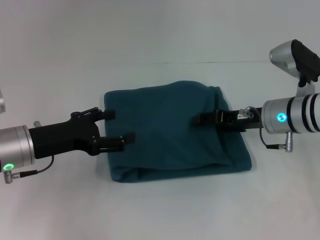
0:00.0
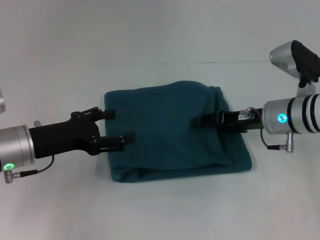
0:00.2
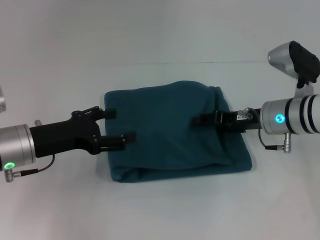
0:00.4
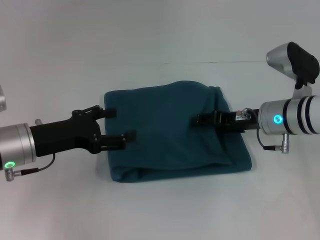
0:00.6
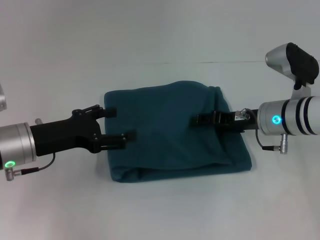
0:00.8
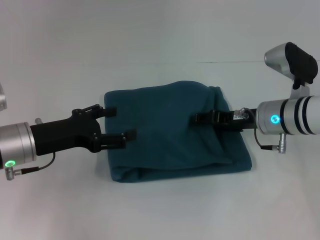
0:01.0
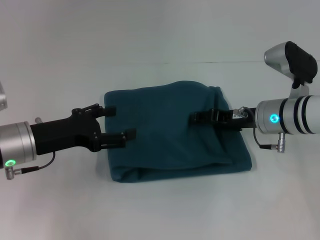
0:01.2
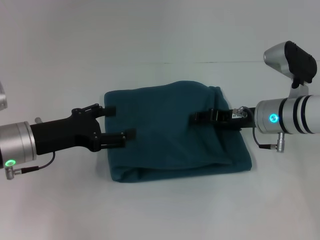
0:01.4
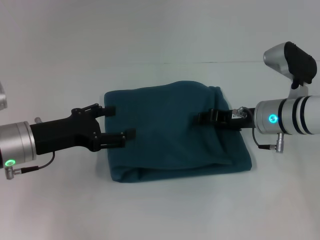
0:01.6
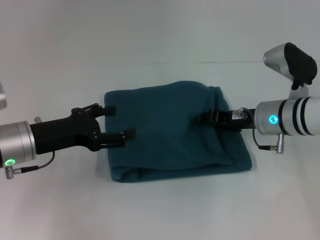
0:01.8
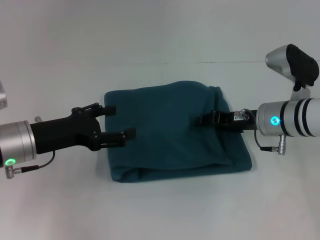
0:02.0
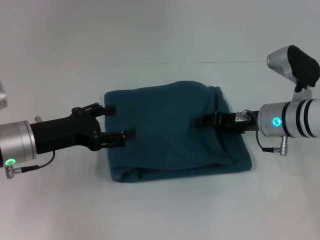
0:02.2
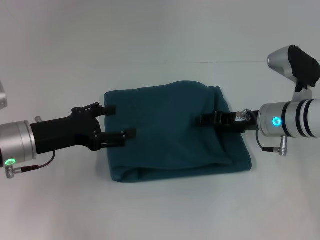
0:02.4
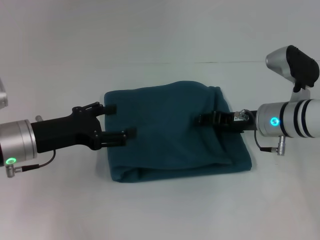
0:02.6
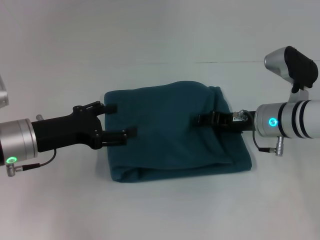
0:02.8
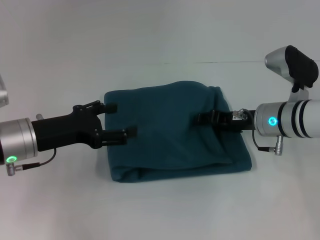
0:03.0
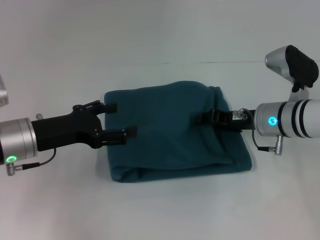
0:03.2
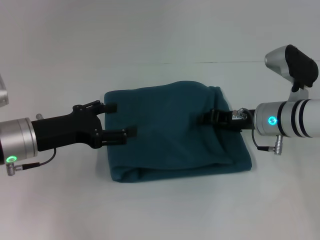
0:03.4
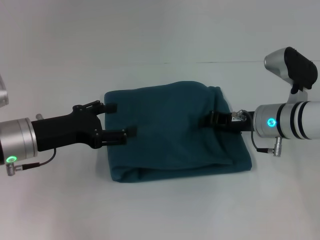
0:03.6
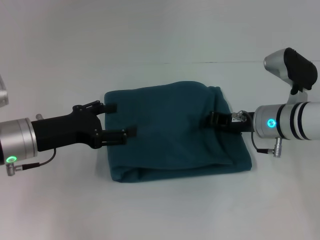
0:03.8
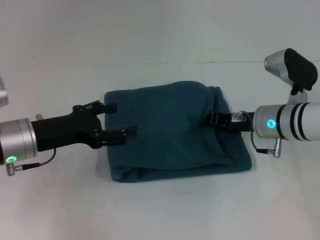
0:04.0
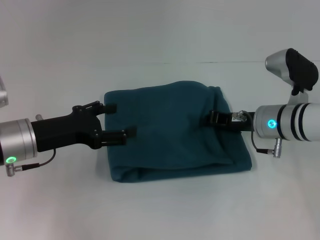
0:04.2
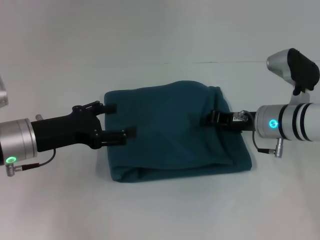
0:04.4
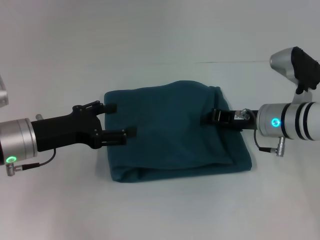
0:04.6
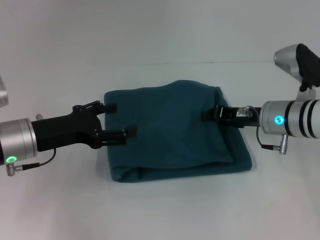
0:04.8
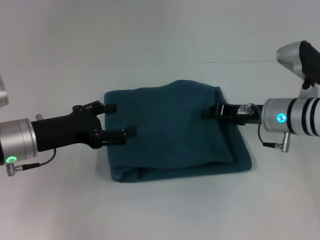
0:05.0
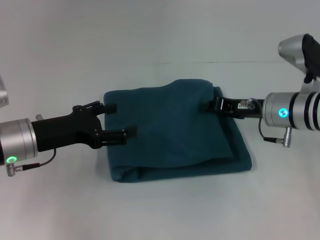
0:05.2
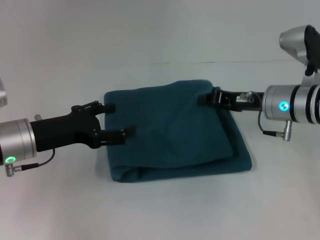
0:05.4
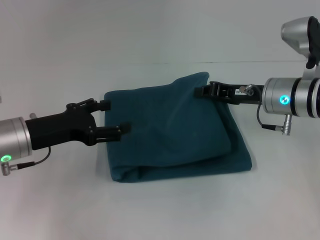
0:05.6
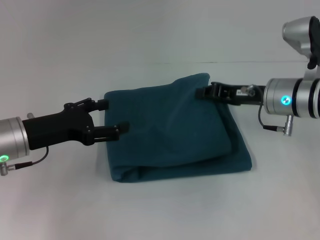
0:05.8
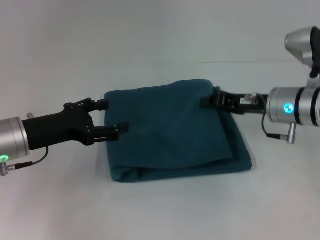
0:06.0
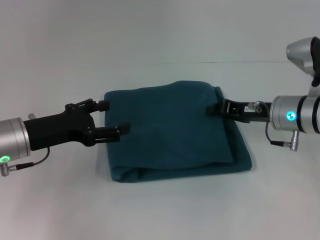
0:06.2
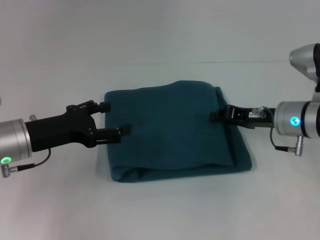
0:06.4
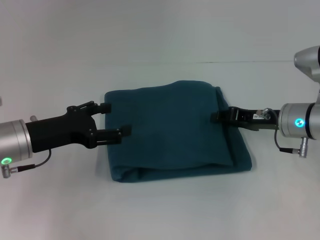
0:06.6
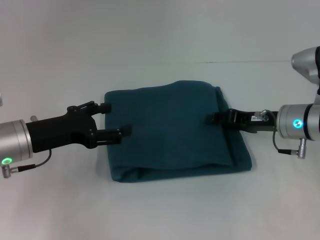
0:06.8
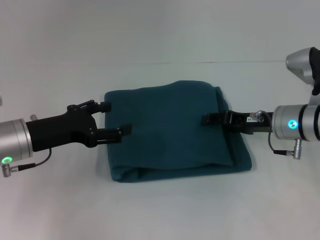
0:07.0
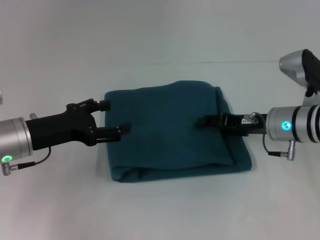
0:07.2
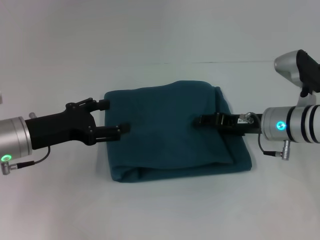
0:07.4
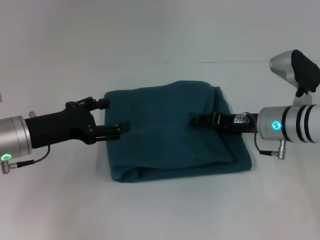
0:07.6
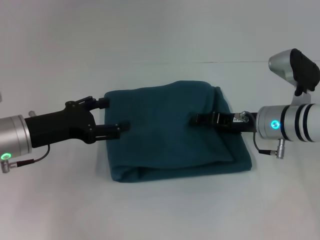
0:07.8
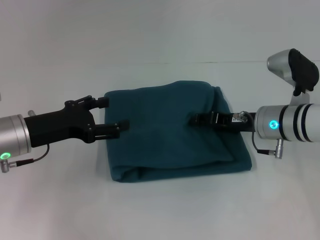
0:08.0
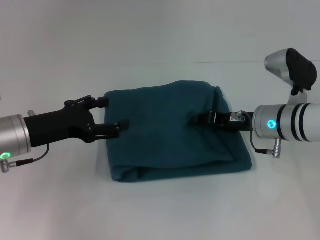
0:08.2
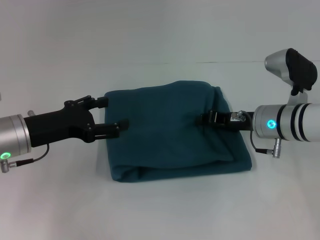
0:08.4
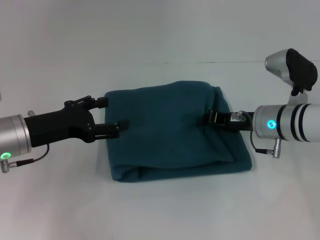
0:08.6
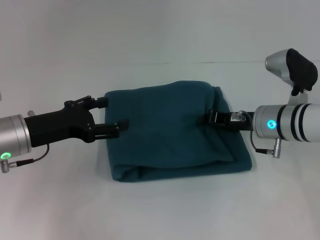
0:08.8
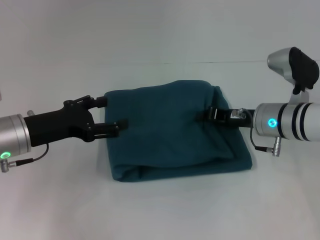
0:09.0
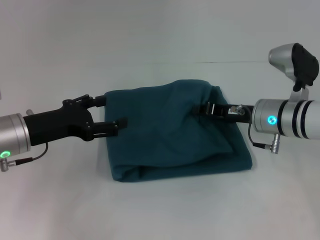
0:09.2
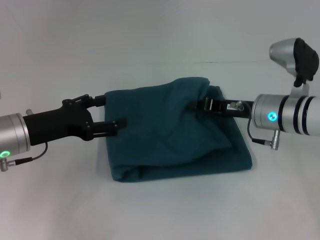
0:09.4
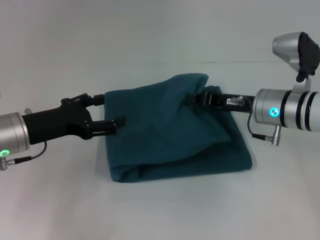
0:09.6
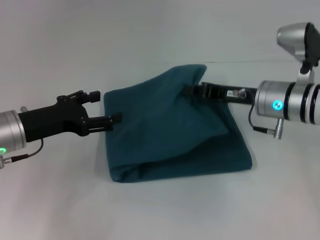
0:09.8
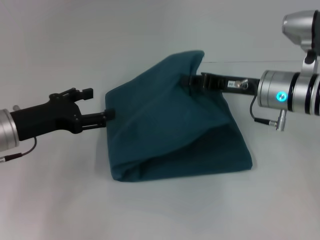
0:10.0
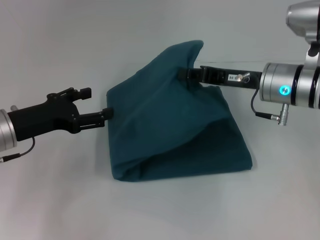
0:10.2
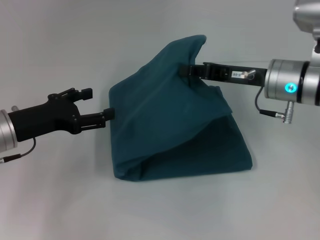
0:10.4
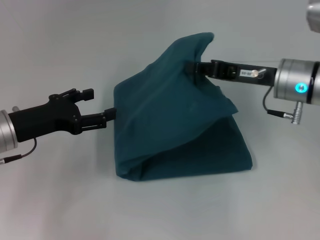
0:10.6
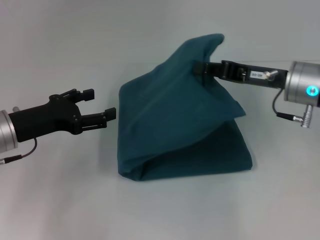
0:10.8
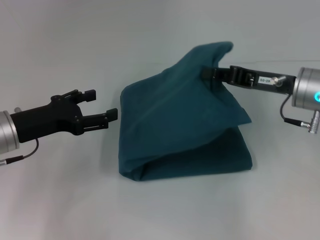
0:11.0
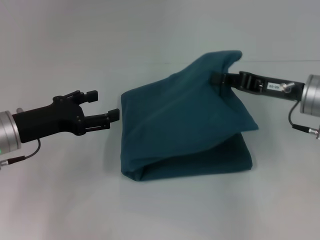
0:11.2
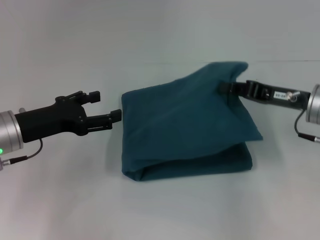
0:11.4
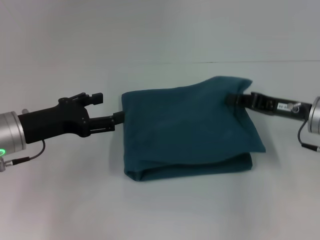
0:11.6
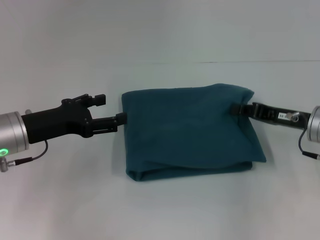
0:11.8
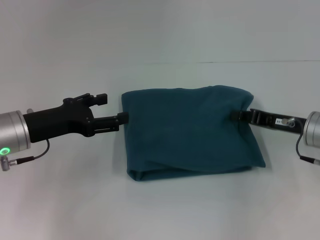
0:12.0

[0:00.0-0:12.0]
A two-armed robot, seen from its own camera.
0:00.0 to 0:01.6: Both grippers stay put.
0:01.6 to 0:03.0: Both grippers stay put.
0:03.0 to 0:04.4: The right gripper closes.
0:04.4 to 0:06.0: The grippers move only a little.
0:06.0 to 0:07.6: The right gripper opens.
0:07.6 to 0:09.0: The right gripper closes up.
0:09.0 to 0:10.4: The right gripper moves upward, about 5 cm.
0:10.4 to 0:12.0: The right gripper moves to the right and downward, approximately 10 cm.

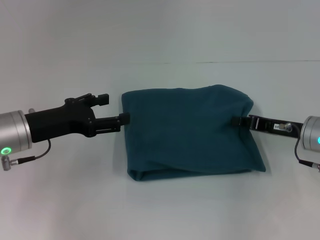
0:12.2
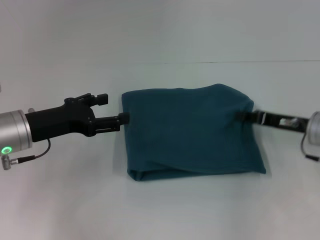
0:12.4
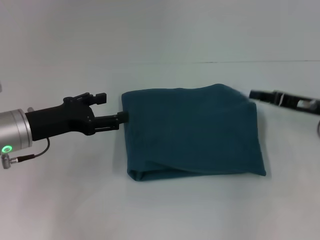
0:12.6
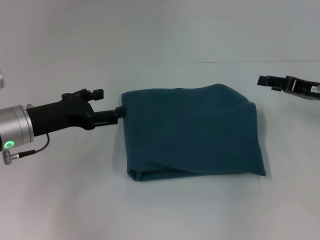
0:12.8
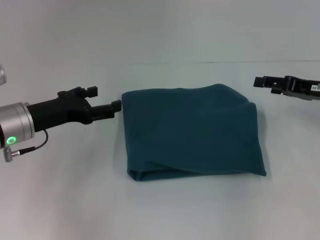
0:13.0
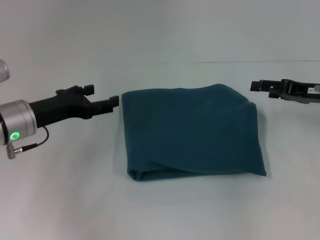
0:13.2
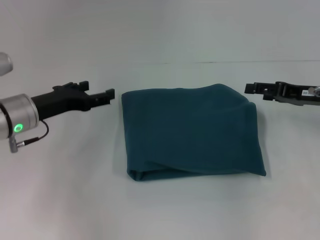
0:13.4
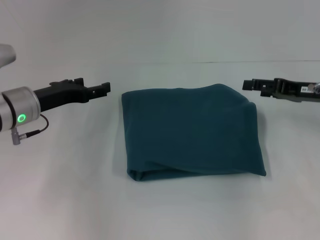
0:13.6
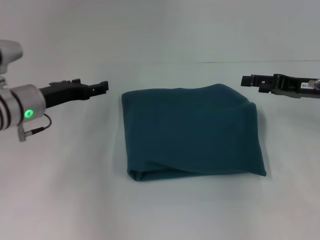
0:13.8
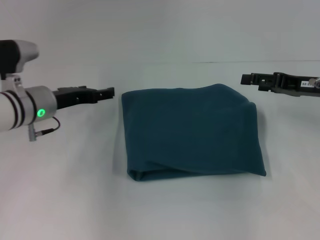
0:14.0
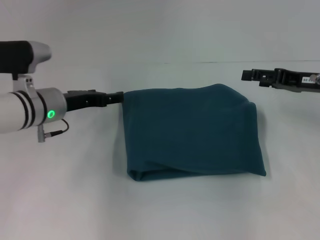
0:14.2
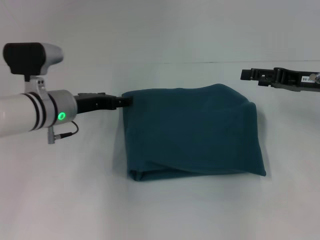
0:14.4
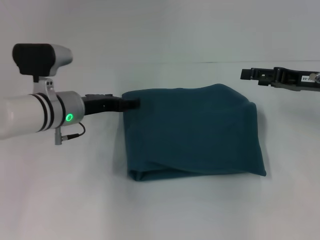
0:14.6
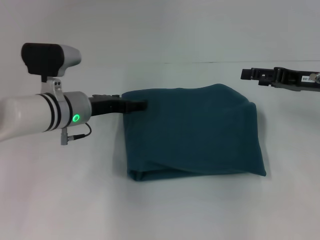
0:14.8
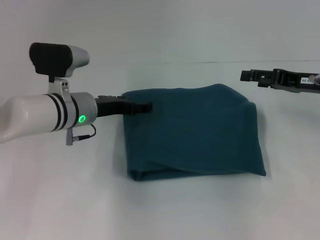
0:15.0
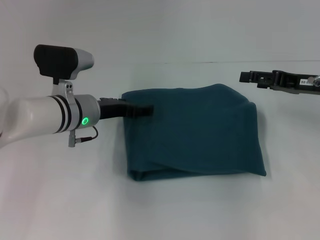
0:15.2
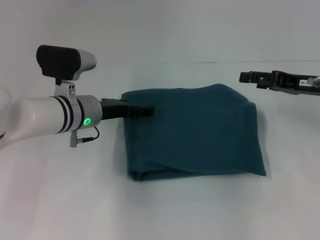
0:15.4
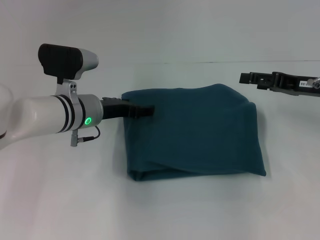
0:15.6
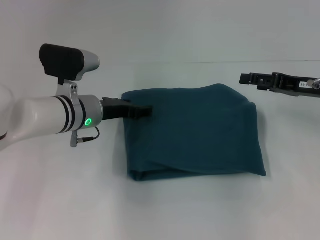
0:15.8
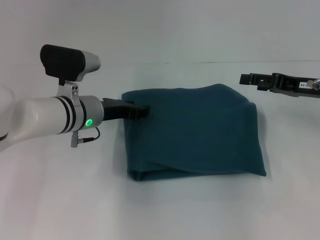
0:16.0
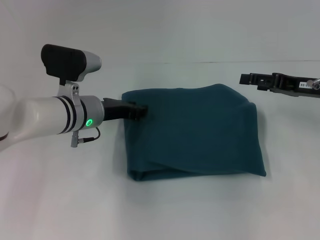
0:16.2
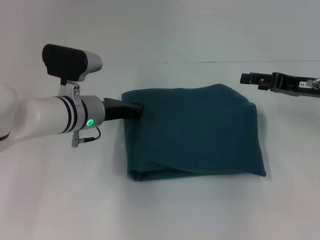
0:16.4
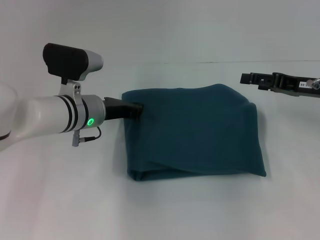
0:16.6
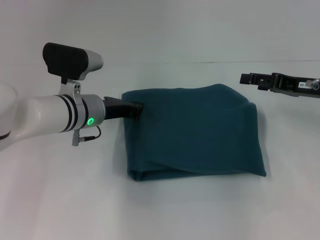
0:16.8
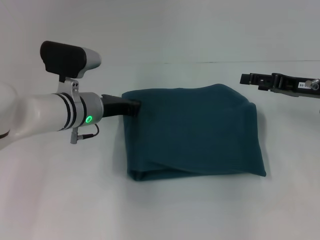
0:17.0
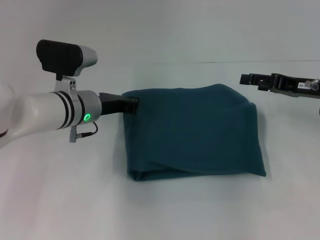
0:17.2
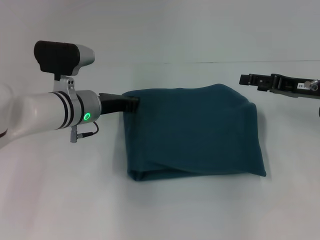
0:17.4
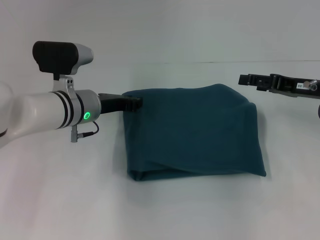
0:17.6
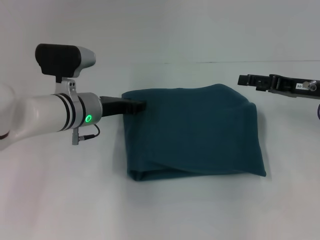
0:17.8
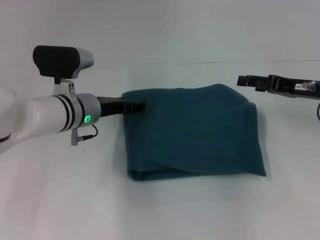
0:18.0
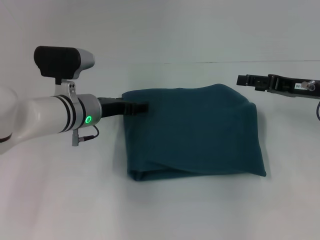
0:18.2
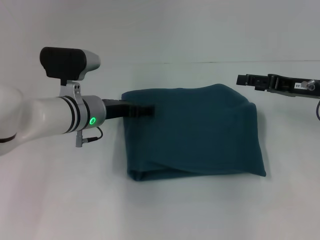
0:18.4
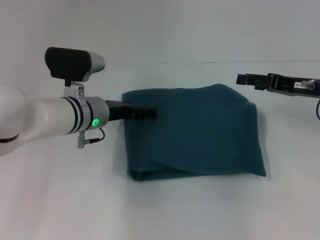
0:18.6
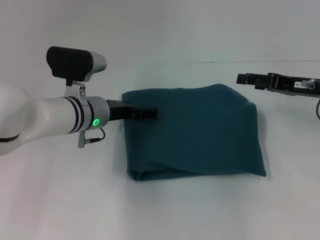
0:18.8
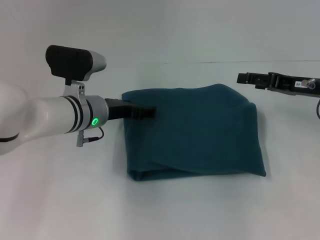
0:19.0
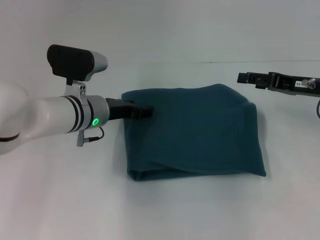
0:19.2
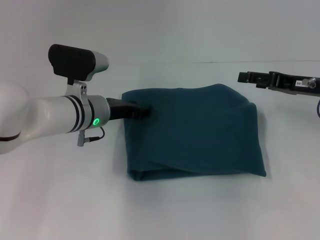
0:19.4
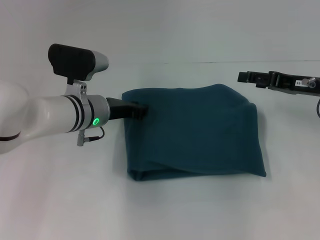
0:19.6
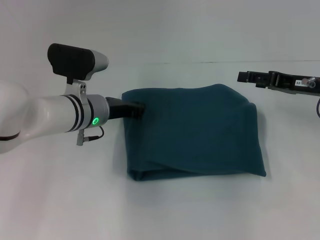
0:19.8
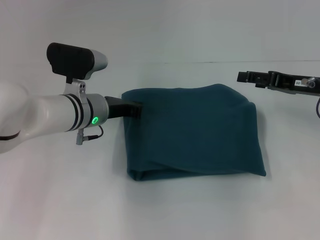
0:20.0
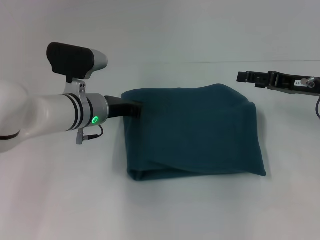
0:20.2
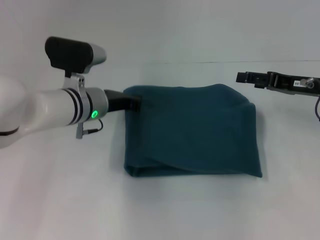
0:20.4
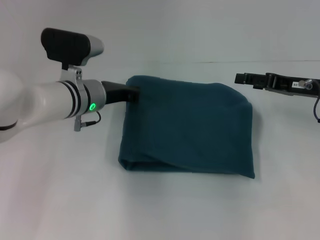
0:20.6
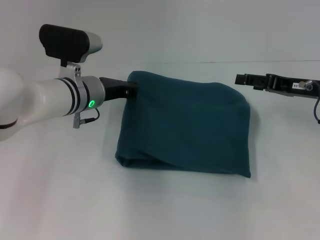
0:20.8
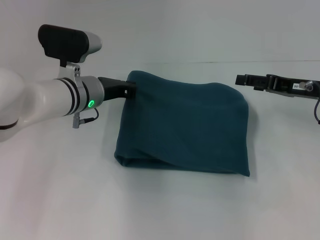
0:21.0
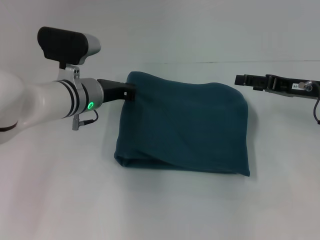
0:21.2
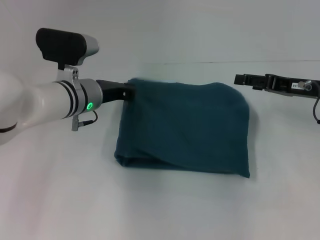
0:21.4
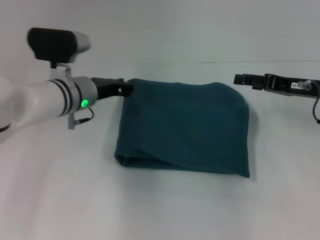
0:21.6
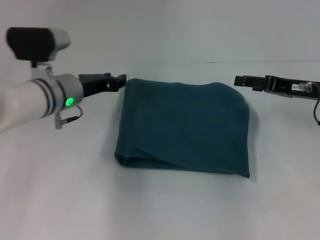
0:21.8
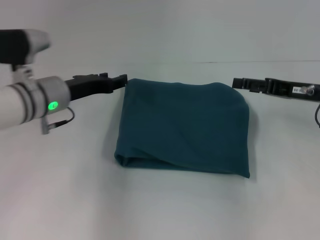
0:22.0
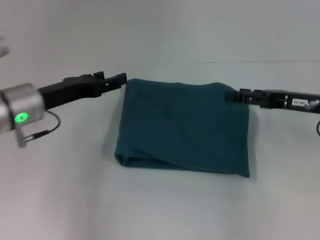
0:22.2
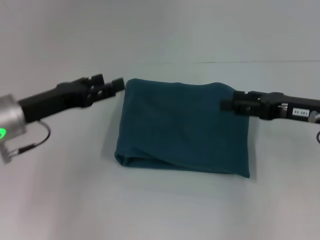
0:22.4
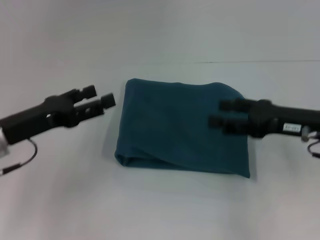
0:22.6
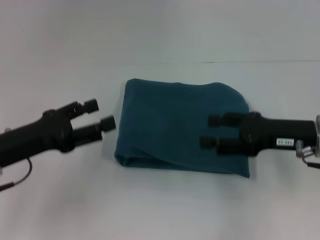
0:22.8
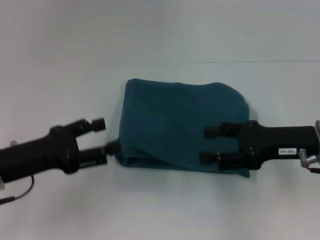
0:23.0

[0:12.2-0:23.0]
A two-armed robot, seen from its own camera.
0:12.2 to 0:13.8: The right gripper travels upward by approximately 5 cm, and opens up, while the left gripper moves forward, about 5 cm.
0:13.8 to 0:15.2: The left gripper heads to the right, covering some 10 cm.
0:15.2 to 0:16.8: The left gripper closes its fingers.
0:16.8 to 0:18.4: The left gripper opens.
0:18.4 to 0:20.0: The left gripper closes.
0:20.0 to 0:21.4: There are only small adjustments of the grippers.
0:21.4 to 0:23.0: The right gripper goes about 5 cm backward. Meanwhile the left gripper shifts about 20 cm backward and to the left, and opens its fingers.
